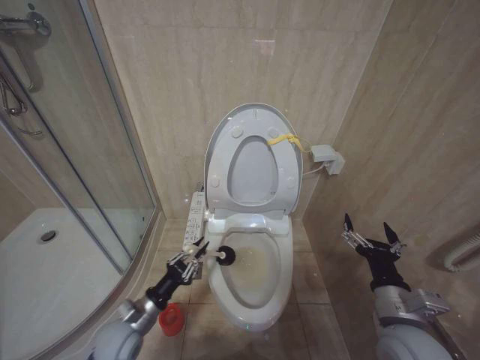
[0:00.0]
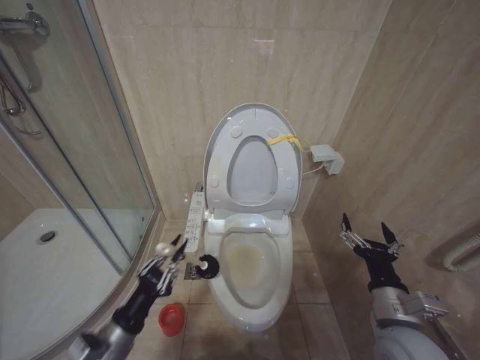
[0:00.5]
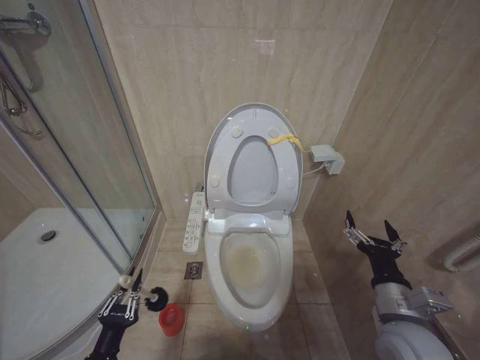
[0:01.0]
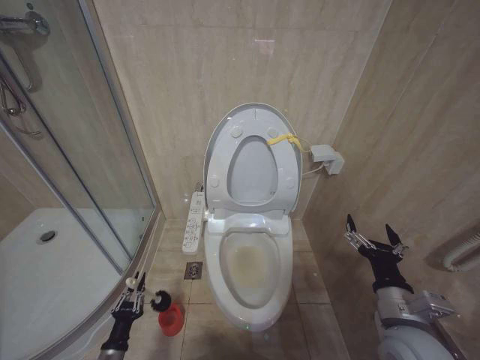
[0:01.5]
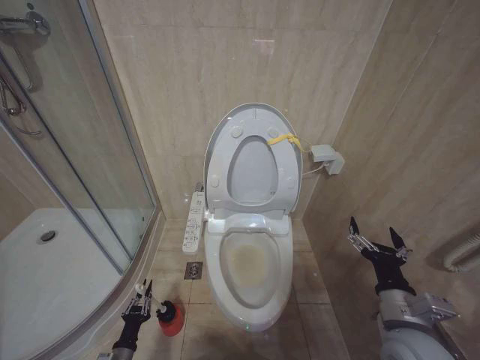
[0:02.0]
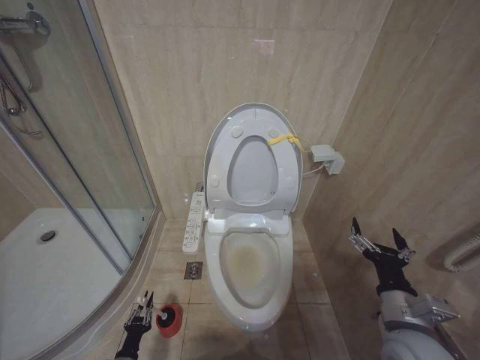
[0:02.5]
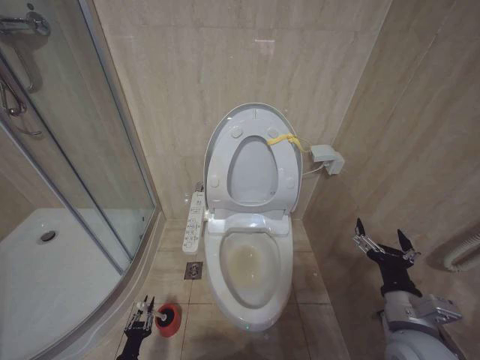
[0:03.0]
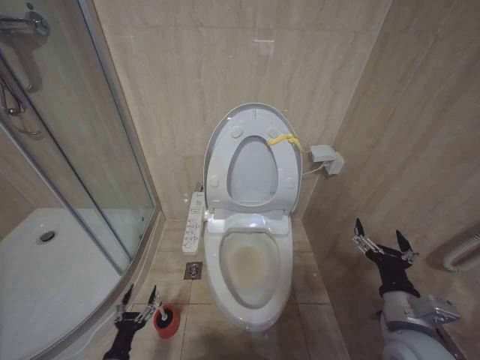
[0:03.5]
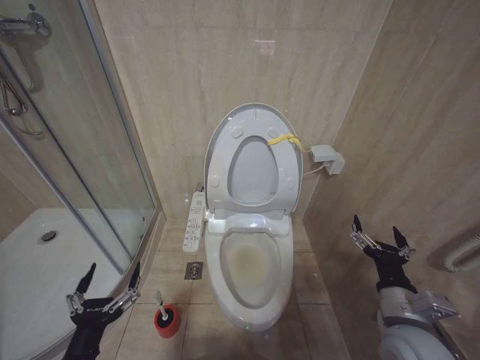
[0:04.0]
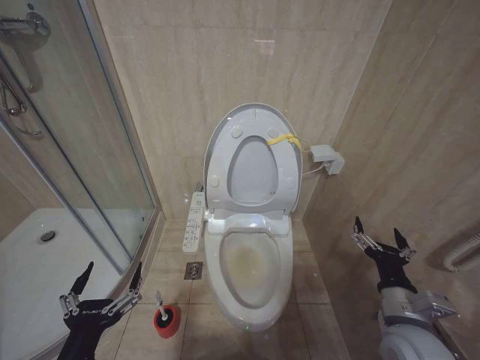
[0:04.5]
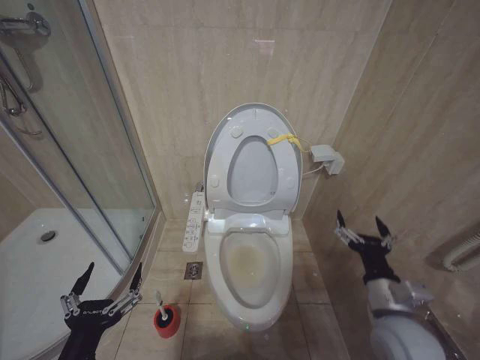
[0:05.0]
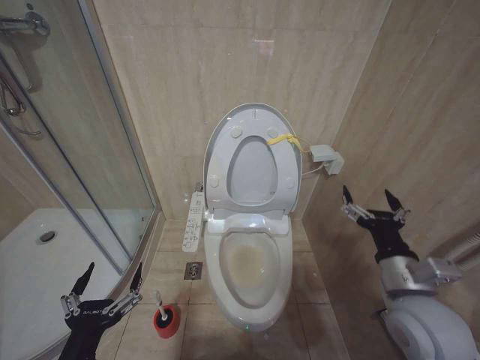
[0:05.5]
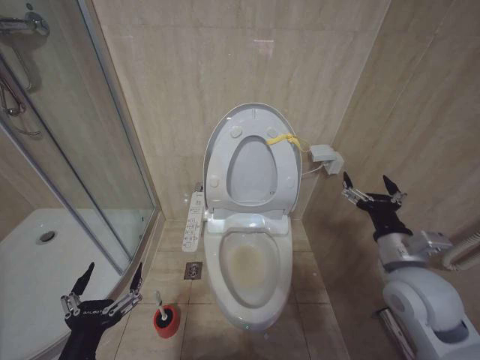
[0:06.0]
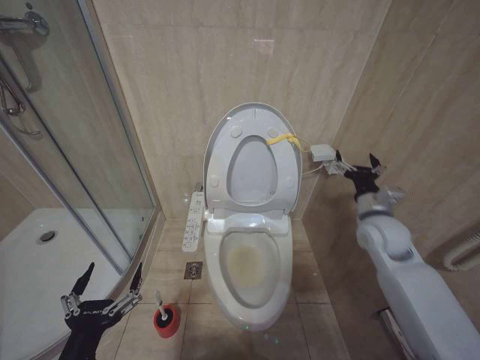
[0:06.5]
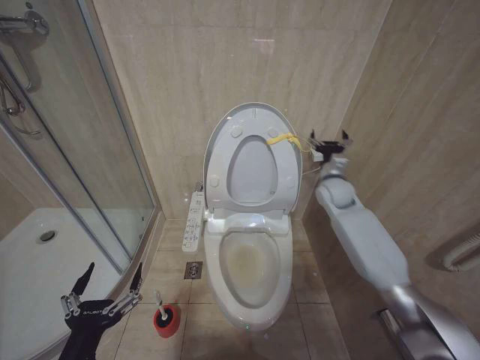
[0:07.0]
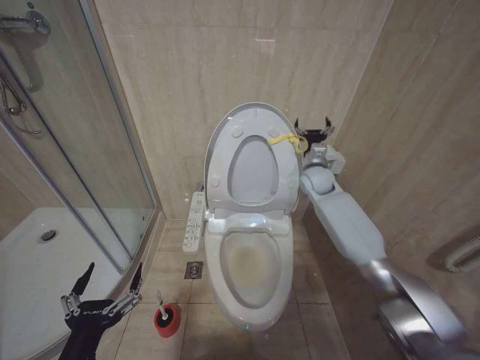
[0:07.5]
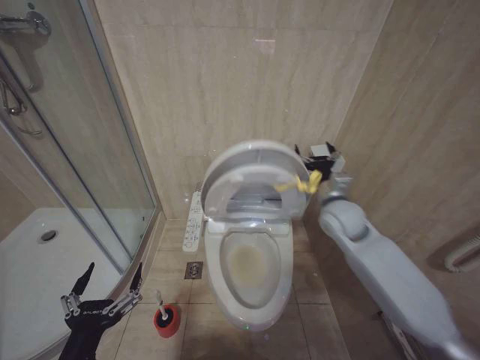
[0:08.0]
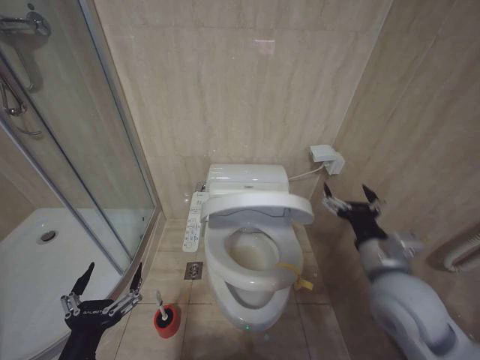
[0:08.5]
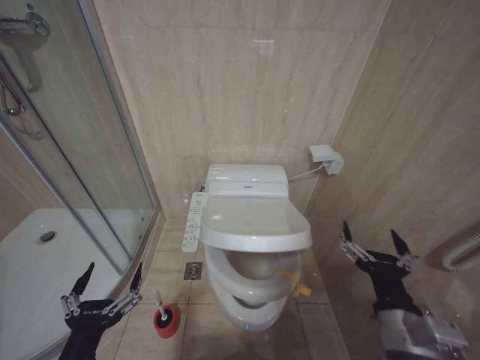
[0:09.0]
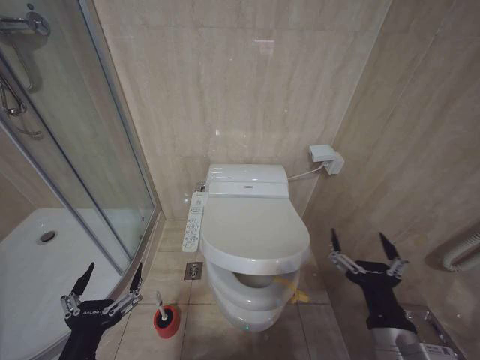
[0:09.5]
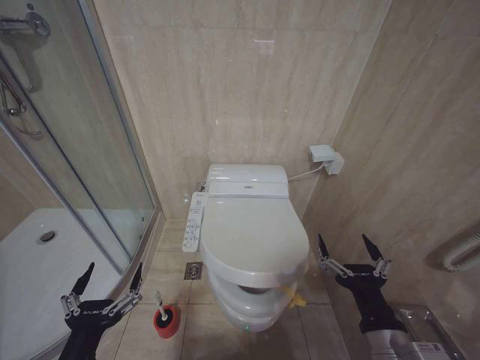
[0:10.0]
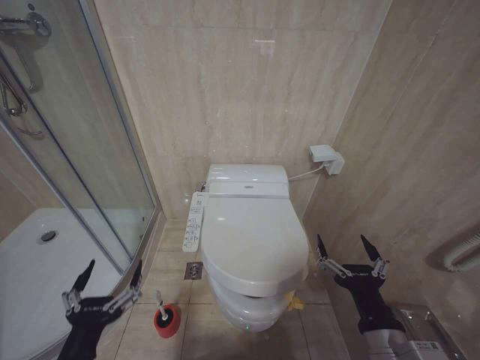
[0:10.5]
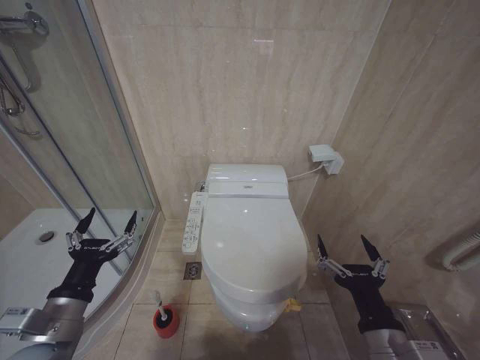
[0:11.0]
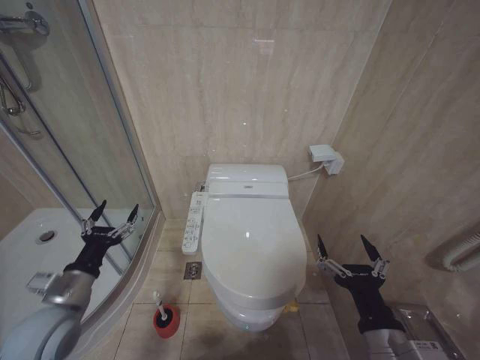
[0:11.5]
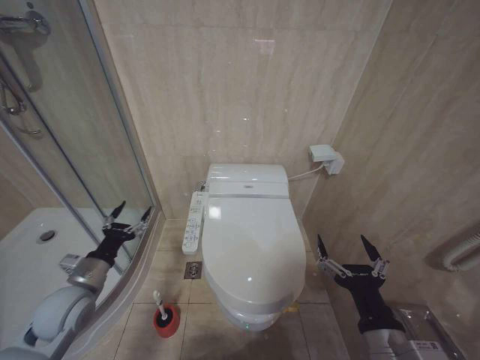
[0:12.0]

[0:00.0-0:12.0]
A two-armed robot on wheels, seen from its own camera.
Task of the whole recording: Open the toilet lid, clean the toilet bowl with a toilet brush, close the toilet lid, and flush.
0:00.0 to 0:02.0: The left gripper is displaced downward, backward and to the left by some 20 cm.
0:02.0 to 0:04.0: The left gripper is displaced upward by about 25 cm, and opens its fingers.
0:04.0 to 0:06.0: The left gripper is displaced upward by some 5 cm. Meanwhile the right gripper is displaced upward and forward by roughly 10 cm.
0:06.0 to 0:08.0: The right gripper goes some 20 cm forward.
0:08.0 to 0:10.0: The right gripper travels backward by about 35 cm.
0:10.0 to 0:12.0: The left gripper moves forward and to the left, approximately 20 cm.

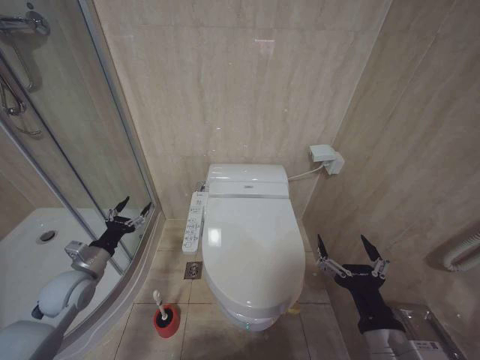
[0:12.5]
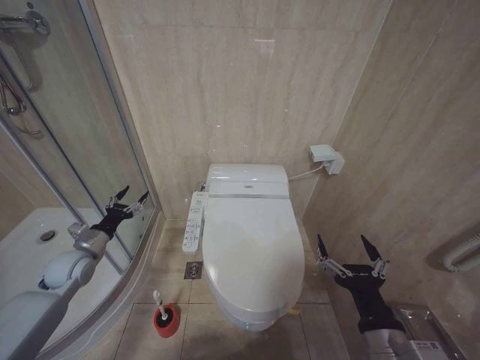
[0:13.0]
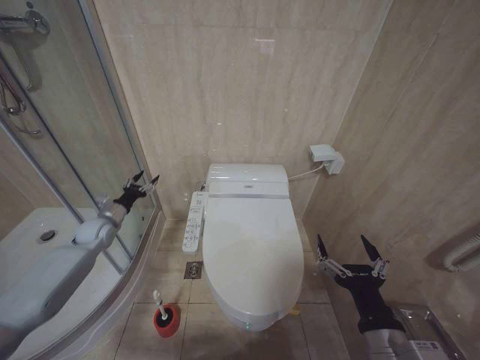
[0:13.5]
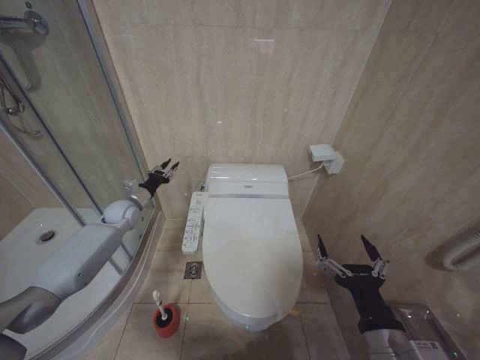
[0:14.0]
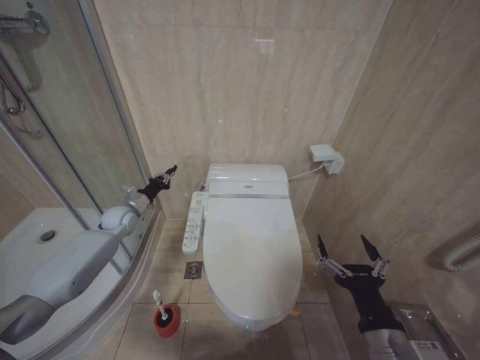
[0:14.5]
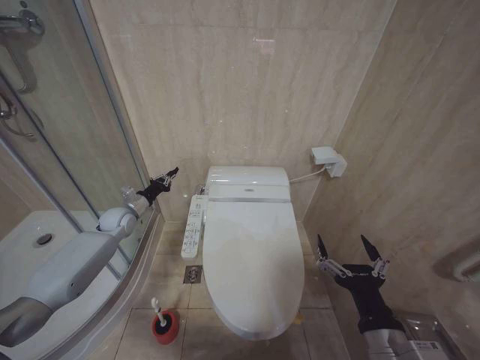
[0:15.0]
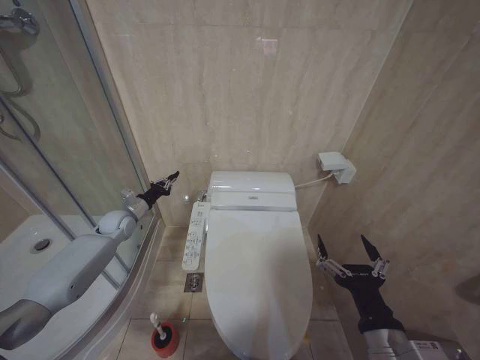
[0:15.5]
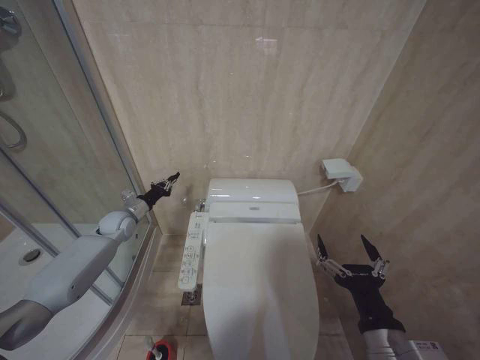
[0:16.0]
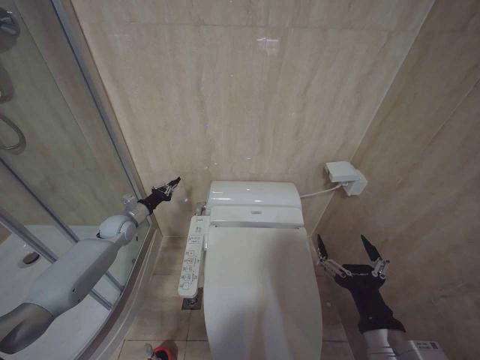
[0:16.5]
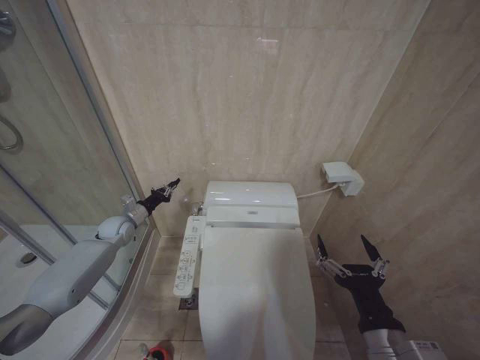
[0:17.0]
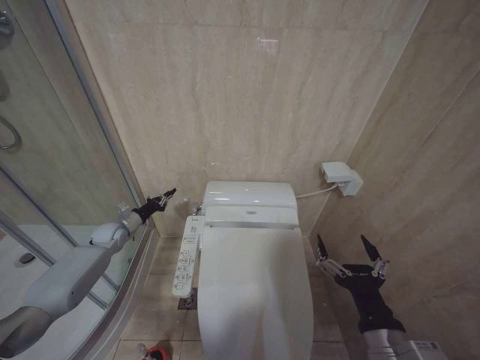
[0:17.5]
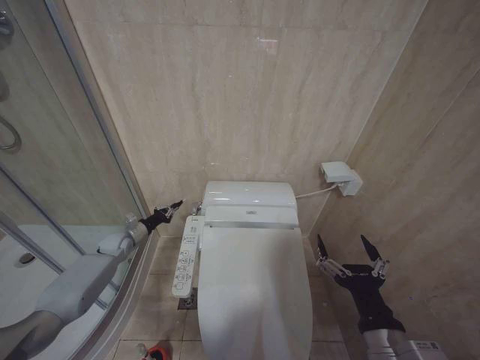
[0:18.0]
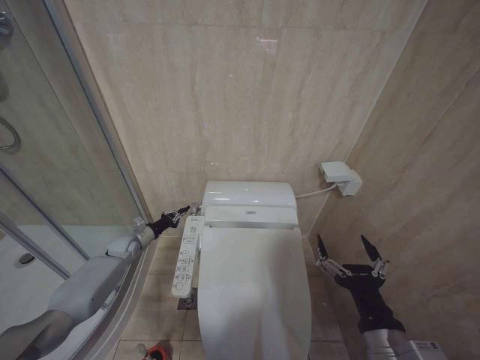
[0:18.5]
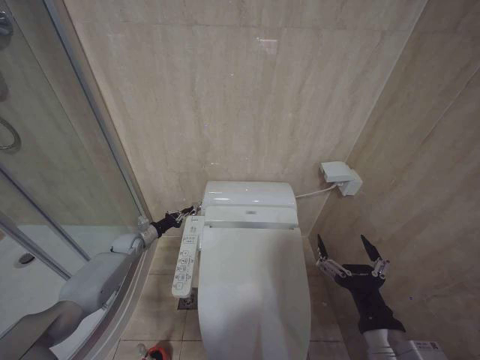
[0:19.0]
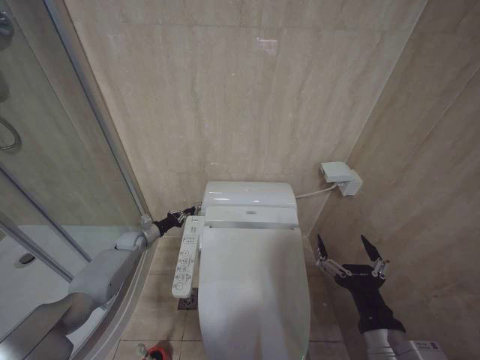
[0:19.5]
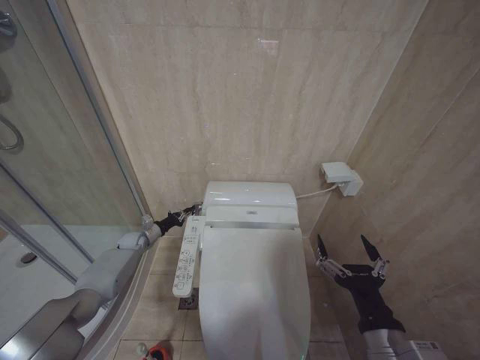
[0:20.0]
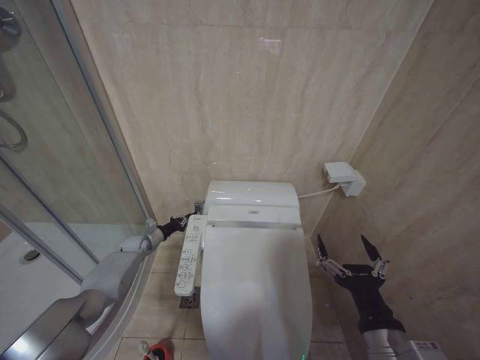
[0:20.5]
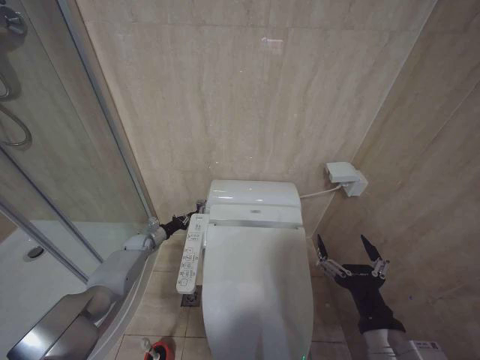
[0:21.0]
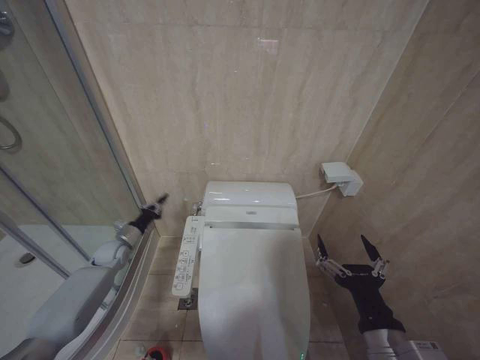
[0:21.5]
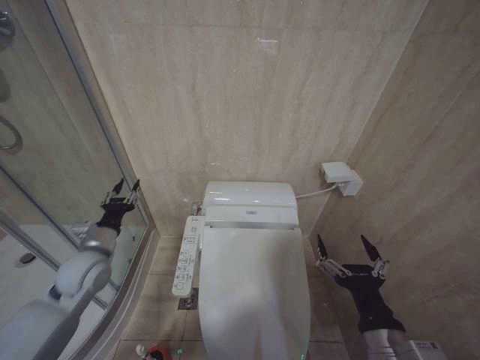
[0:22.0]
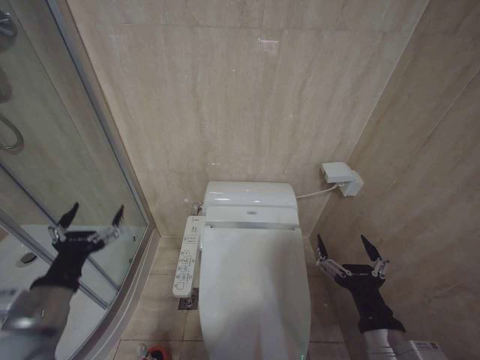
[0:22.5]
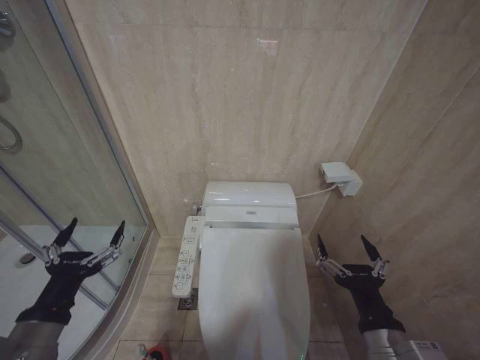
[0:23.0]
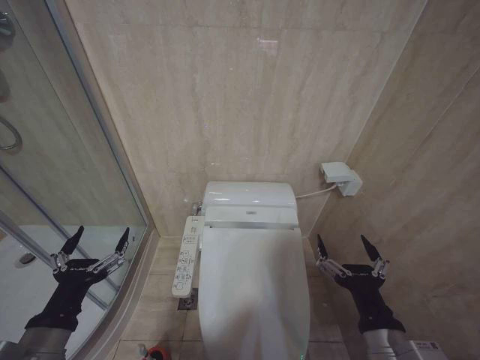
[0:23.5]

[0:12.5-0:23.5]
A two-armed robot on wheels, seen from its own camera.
Task of the whole recording: Open the toilet lid, clean the toilet bowl with a toilet brush, close the toilet lid, and flush.
0:12.5 to 0:14.5: The left gripper shifts some 20 cm forward, and closes.
0:14.5 to 0:16.0: There are only small adjustments of the grippers.
0:16.0 to 0:18.0: The left gripper goes some 10 cm downward.
0:18.0 to 0:20.0: The left gripper moves downward, about 5 cm.
0:20.0 to 0:21.5: The left gripper shifts about 5 cm backward.
0:21.5 to 0:23.5: The left gripper heads backward and upward, covering roughly 40 cm, and opens up.

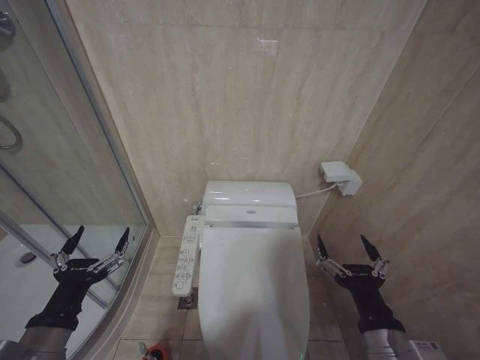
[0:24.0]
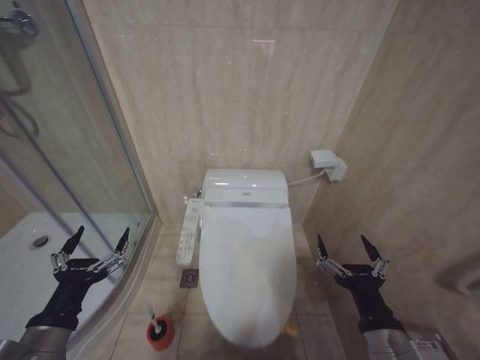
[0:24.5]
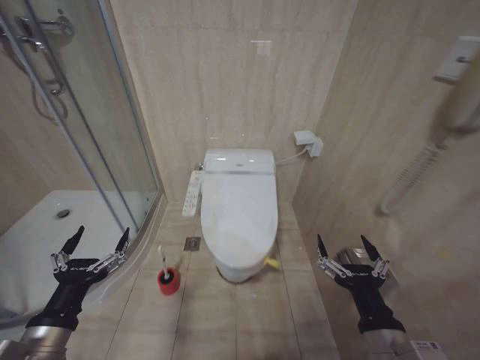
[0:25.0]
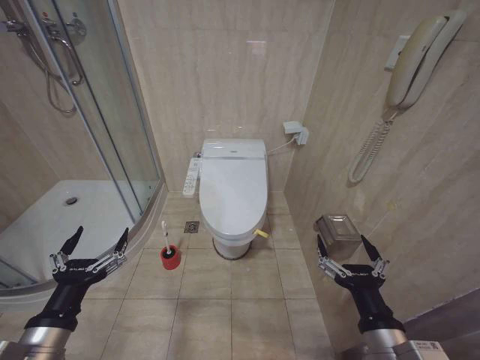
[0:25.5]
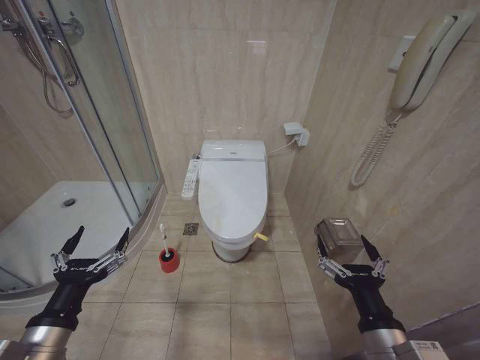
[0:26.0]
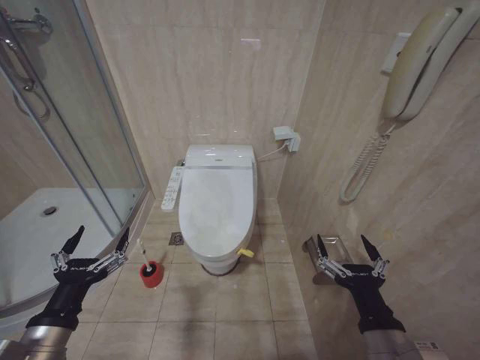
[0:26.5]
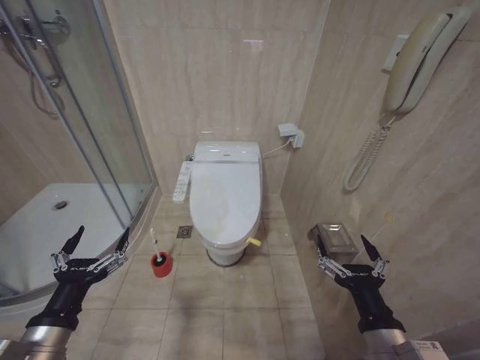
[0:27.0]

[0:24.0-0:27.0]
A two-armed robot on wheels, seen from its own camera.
Task of the whole recording: Open the toilet lid, clean the toilet bowl with a toilet brush, close the toilet lid, and flush.
0:25.5 to 0:27.0: Both grippers stay put.
